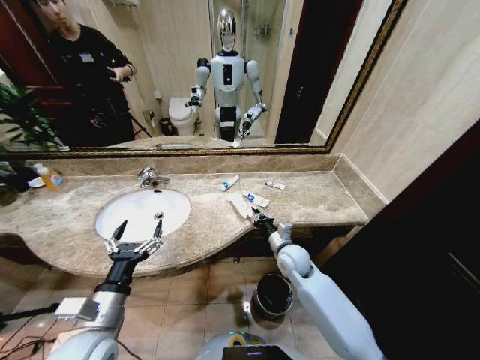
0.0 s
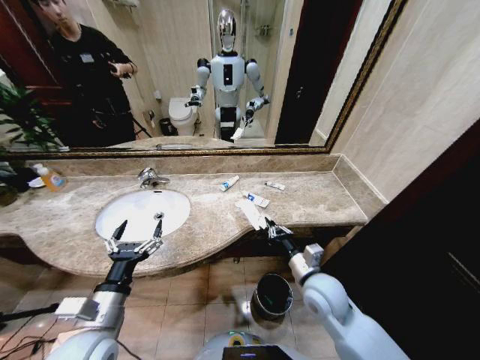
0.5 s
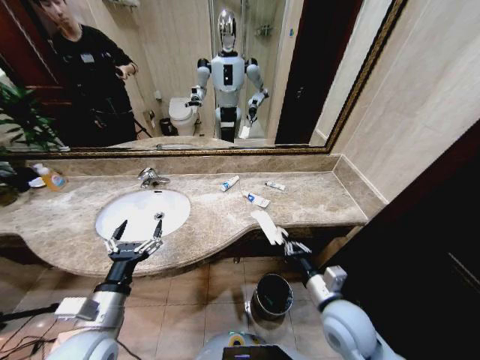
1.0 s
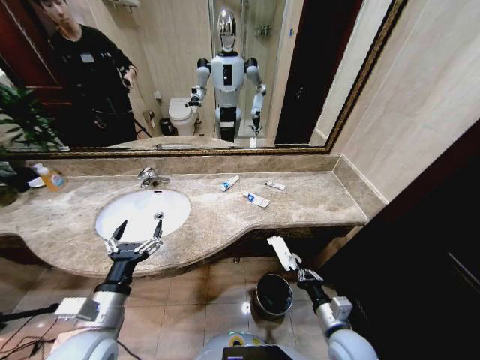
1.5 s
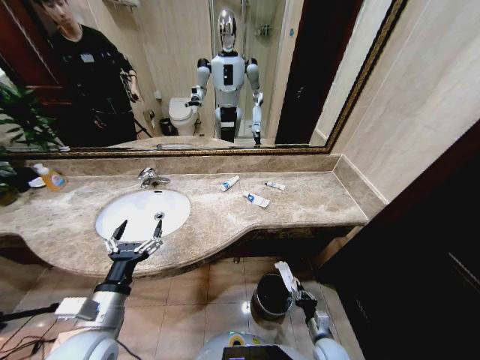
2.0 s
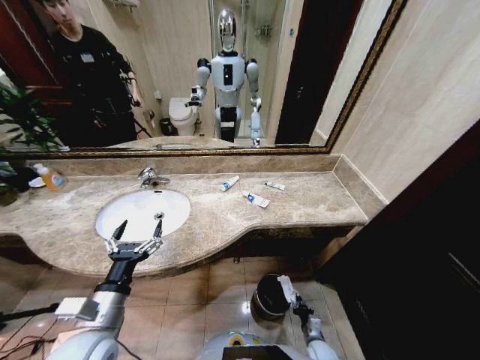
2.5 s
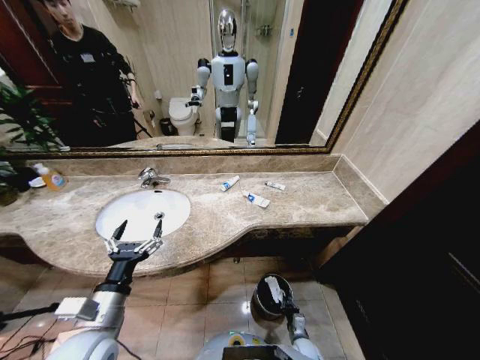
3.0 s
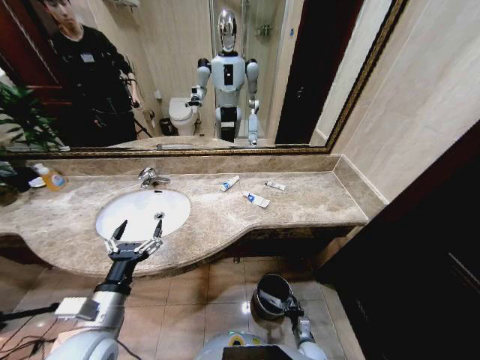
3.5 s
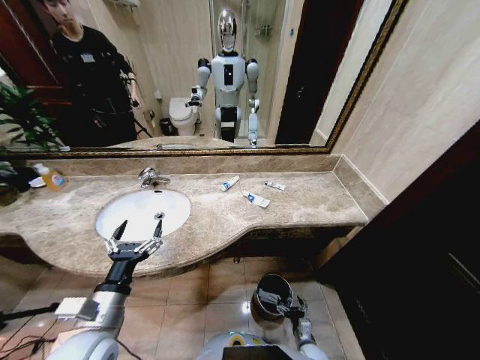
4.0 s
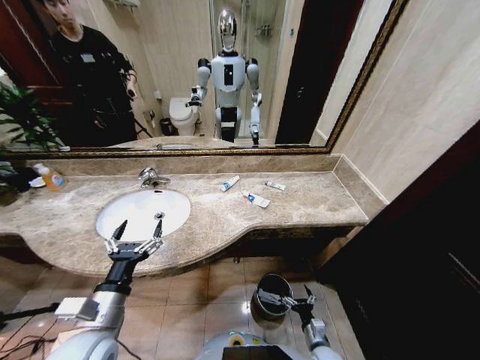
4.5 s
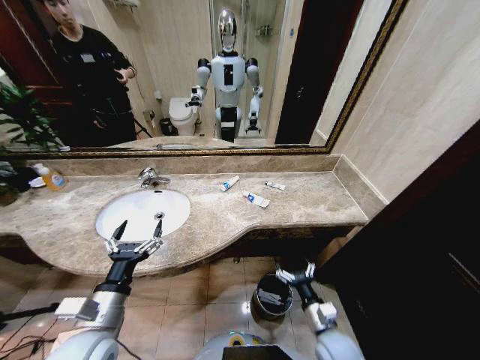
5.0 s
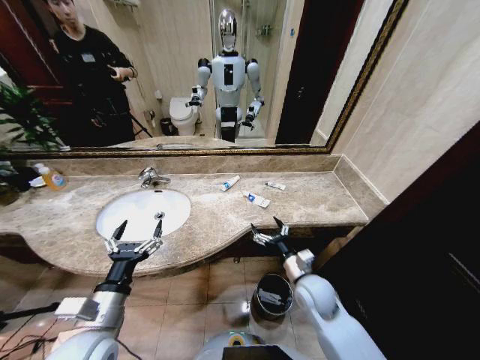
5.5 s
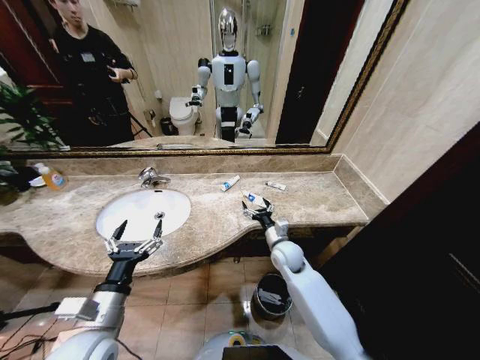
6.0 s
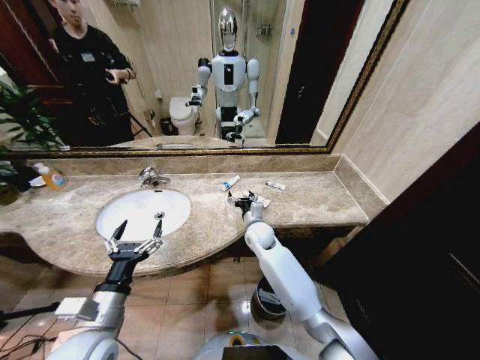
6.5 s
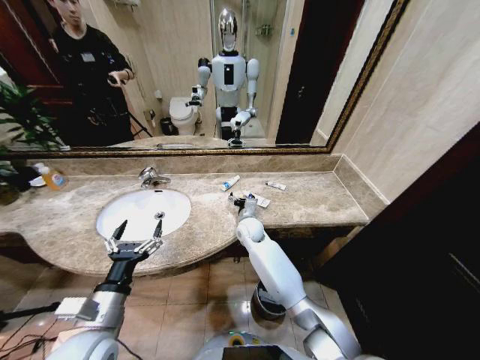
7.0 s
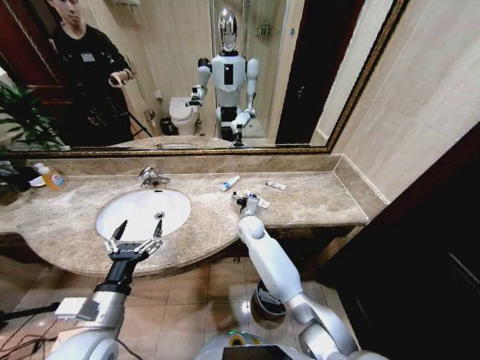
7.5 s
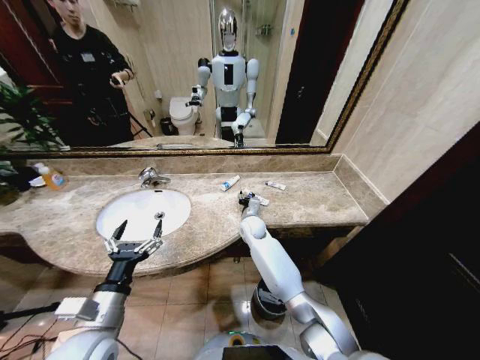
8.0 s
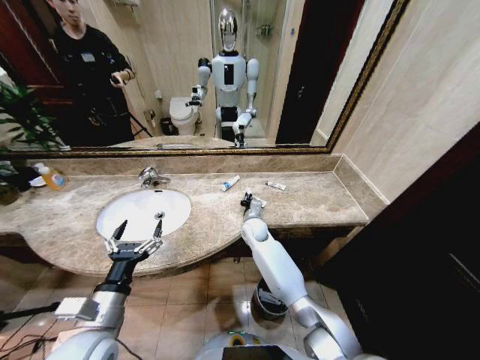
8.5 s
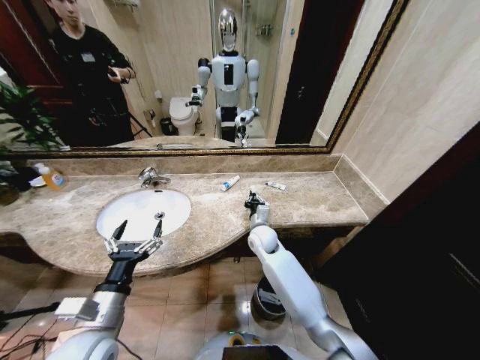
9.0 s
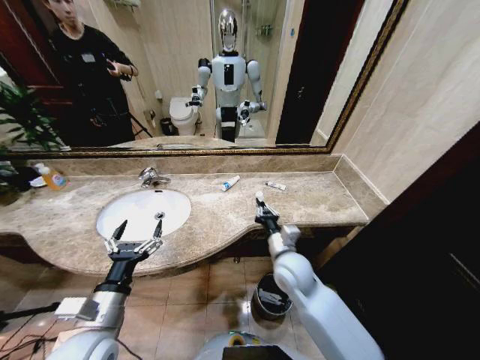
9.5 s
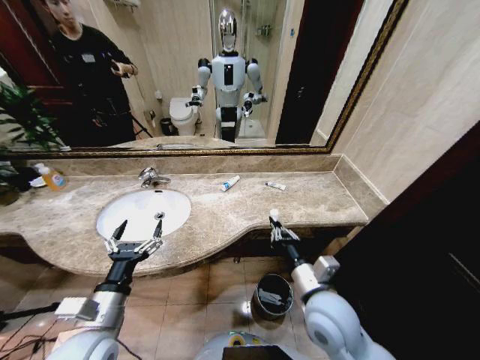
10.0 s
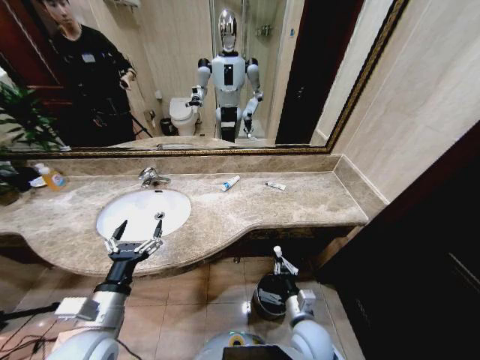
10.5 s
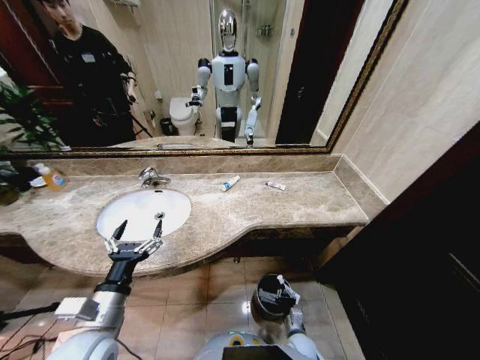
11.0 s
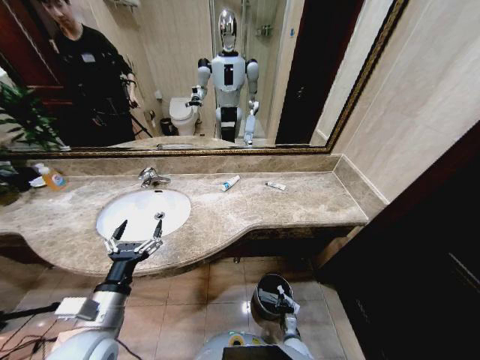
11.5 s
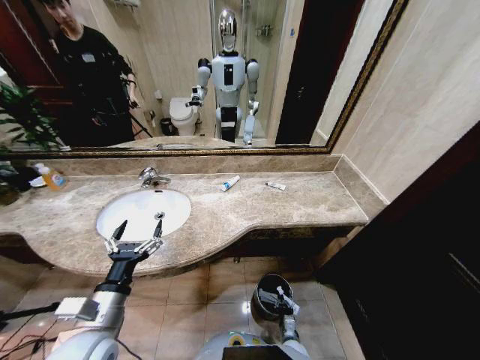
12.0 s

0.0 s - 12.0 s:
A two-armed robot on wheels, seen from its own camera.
Task of the whole recording: Pick up the trash from the sink and place it in the trash bin.
0.0 s - 2.0 s: The right gripper heads downward, backward and to the right, covering roughly 35 cm.
2.0 s - 4.0 s: The right gripper moves downward, roughly 10 cm, and opens its fingers.
4.0 s - 6.0 s: The right gripper shifts some 40 cm upward and forward.
6.0 s - 8.0 s: The right gripper goes roughly 15 cm forward and to the left, and closes.
8.0 s - 10.0 s: The right gripper shifts roughly 30 cm backward, and closes its fingers.
10.0 s - 12.0 s: The right gripper shifts roughly 40 cm downward.

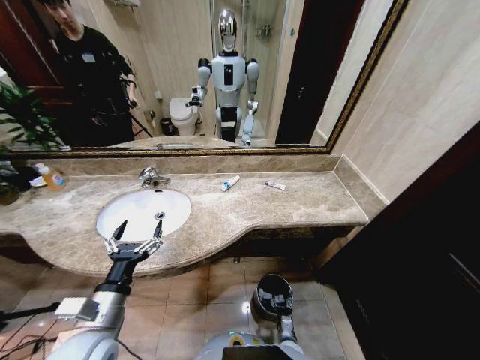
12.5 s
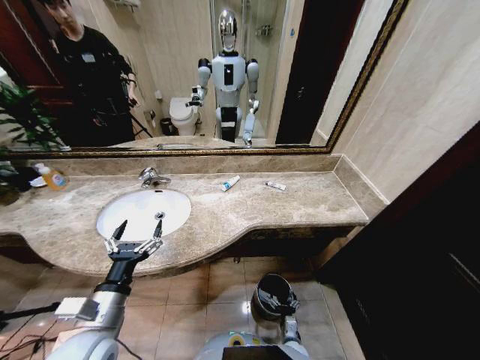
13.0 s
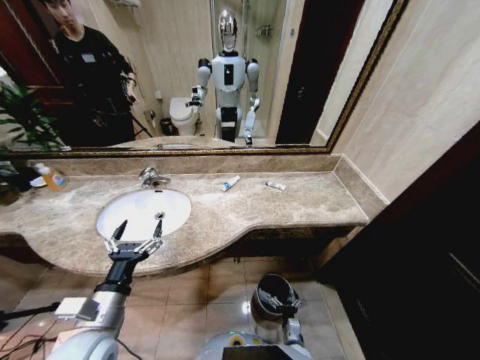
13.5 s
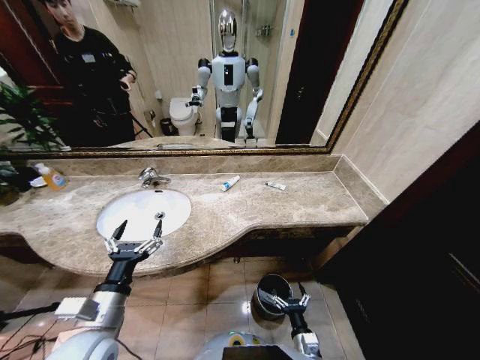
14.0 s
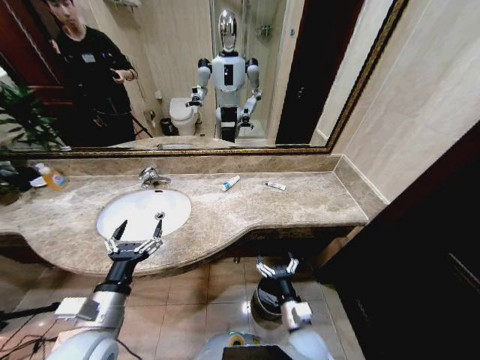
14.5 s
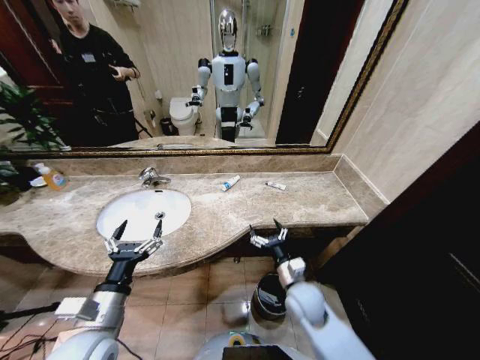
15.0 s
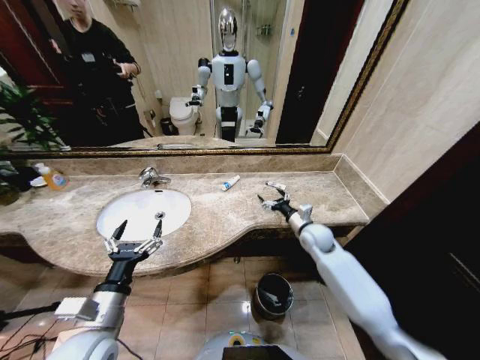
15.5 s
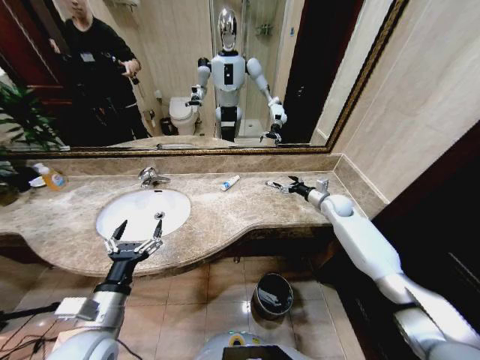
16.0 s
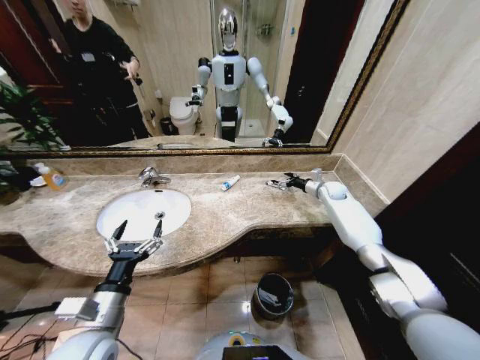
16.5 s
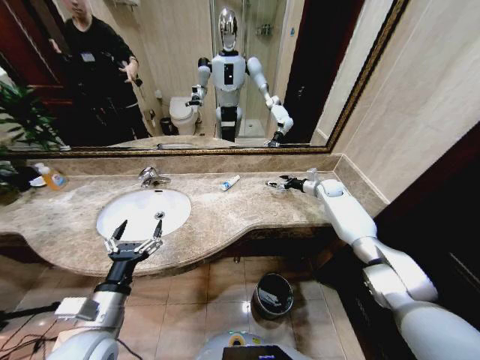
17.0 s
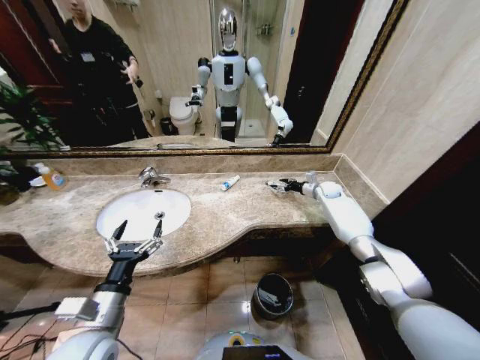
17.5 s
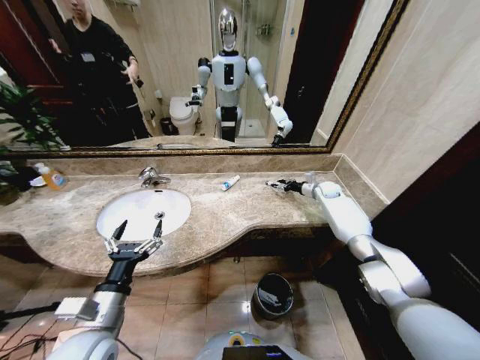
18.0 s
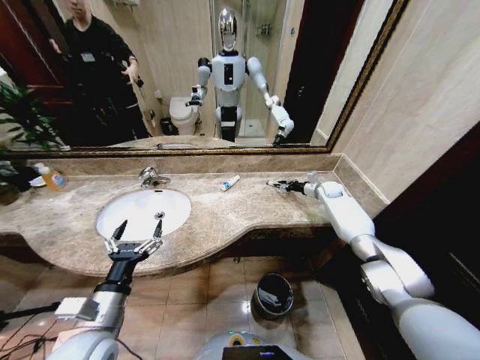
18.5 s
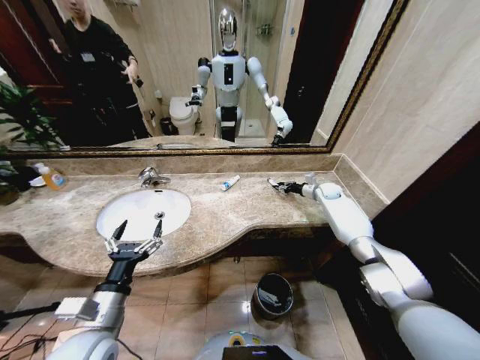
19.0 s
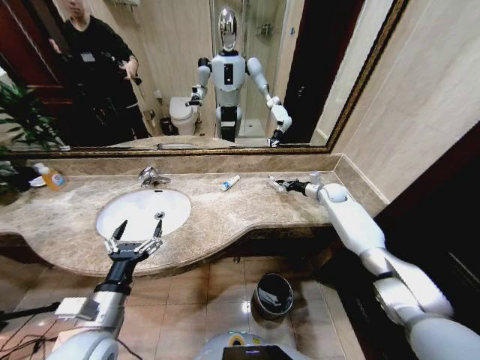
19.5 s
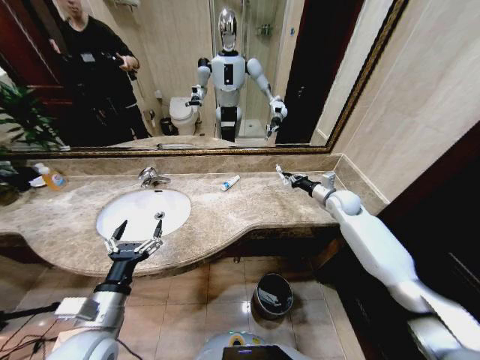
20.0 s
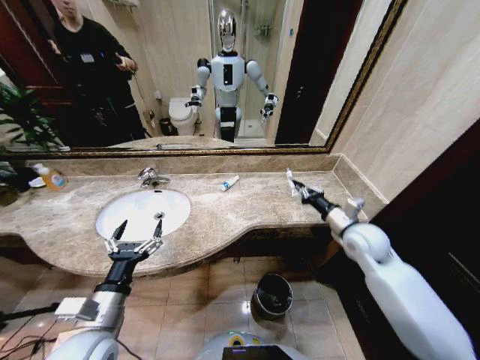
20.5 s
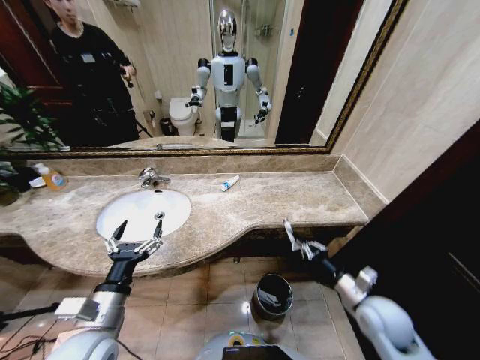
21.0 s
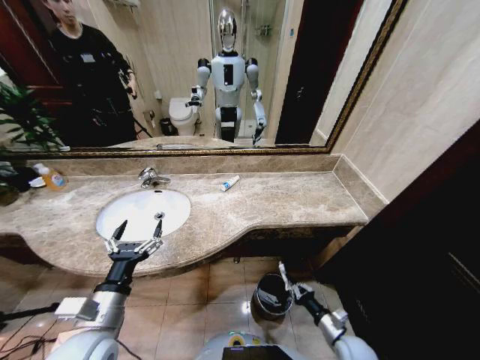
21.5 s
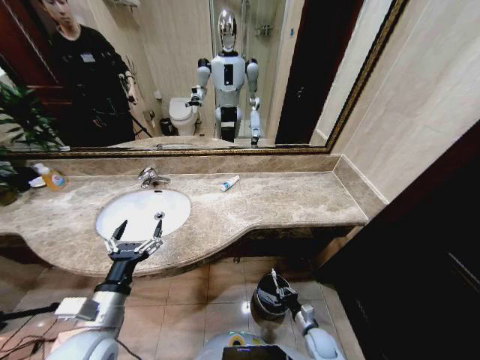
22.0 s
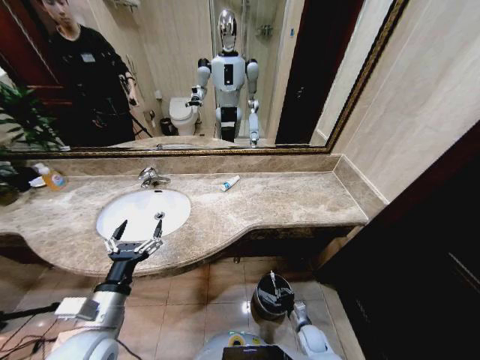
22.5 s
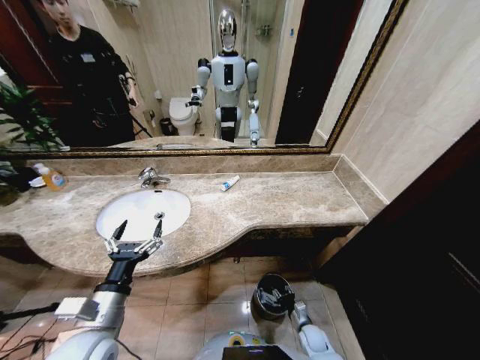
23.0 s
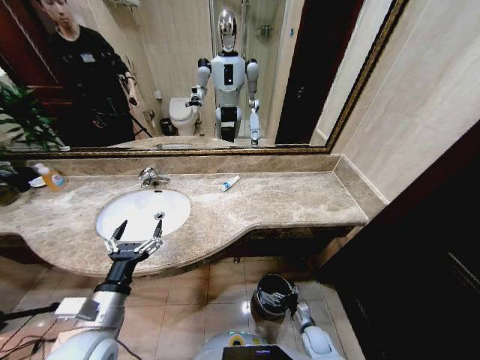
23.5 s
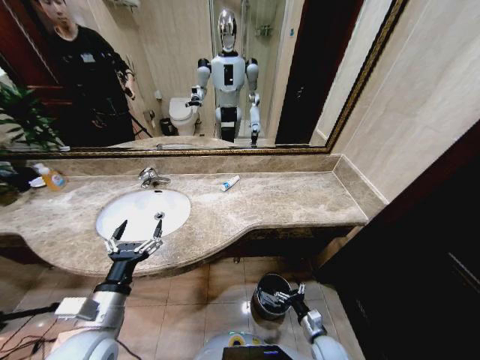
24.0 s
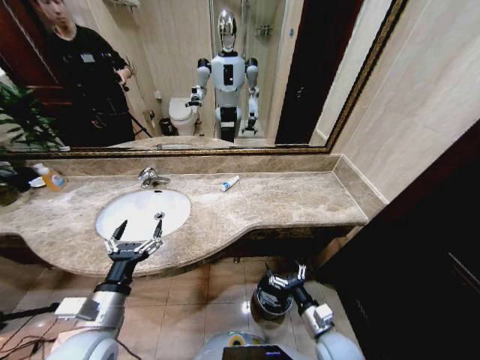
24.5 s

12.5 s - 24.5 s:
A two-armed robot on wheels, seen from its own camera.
Task of the whole recording: Pick up the trash from the sink and place it in the trash bin.
12.5 s - 14.5 s: The right gripper travels upward by approximately 25 cm, and opens.
14.5 s - 16.5 s: The right gripper heads forward and to the right, covering some 50 cm.
16.5 s - 18.5 s: The right gripper closes up.
18.5 s - 20.5 s: The right gripper is displaced backward by approximately 25 cm, and closes up.
20.5 s - 22.5 s: The right gripper goes some 40 cm downward.
22.5 s - 24.5 s: The right gripper travels upward by about 20 cm, and opens up.

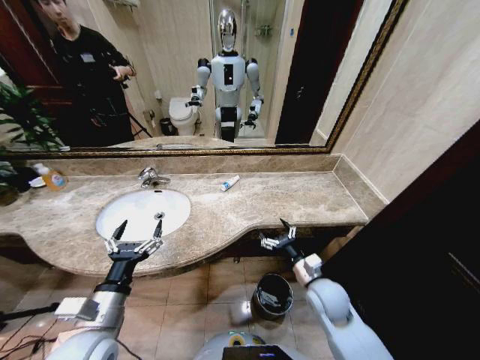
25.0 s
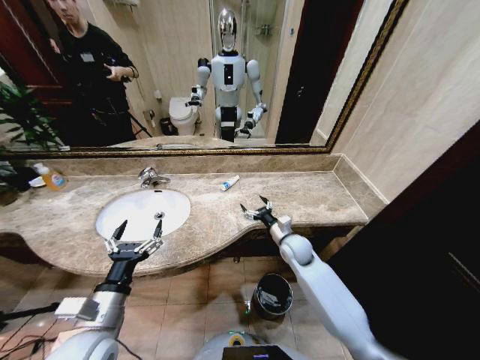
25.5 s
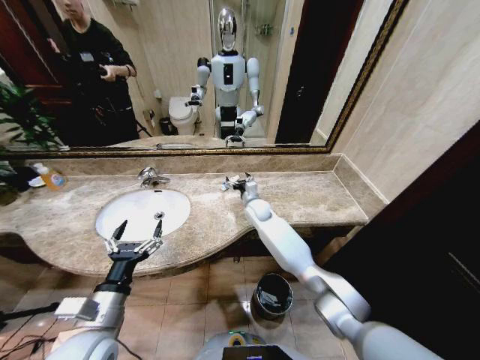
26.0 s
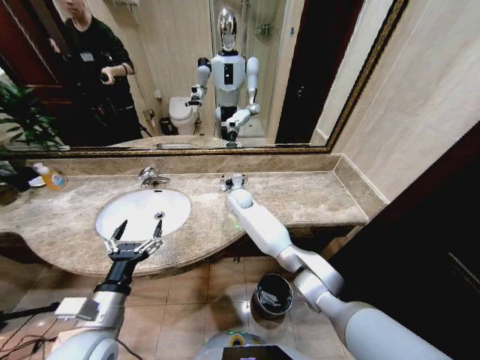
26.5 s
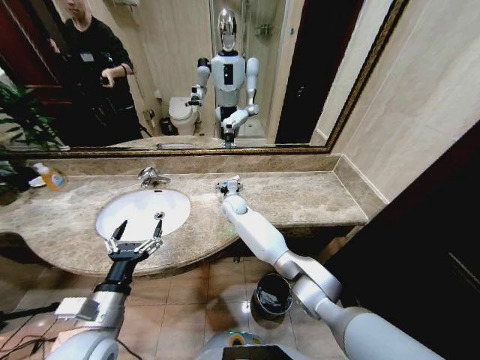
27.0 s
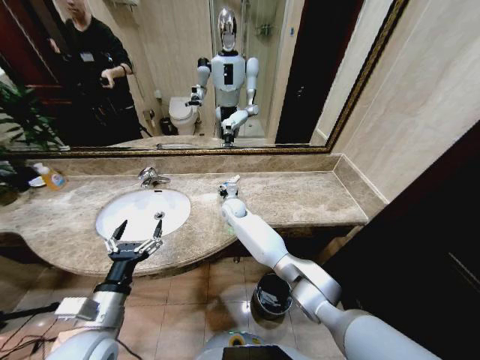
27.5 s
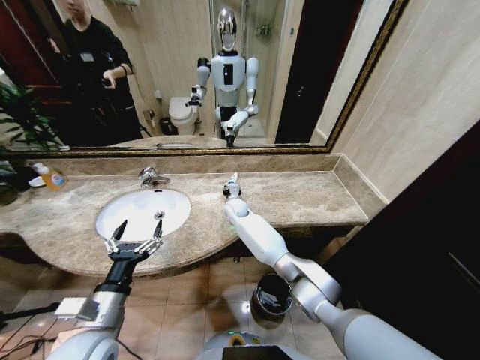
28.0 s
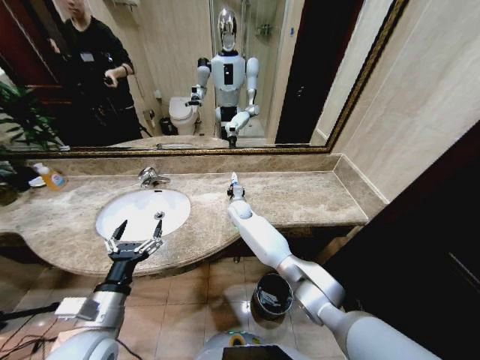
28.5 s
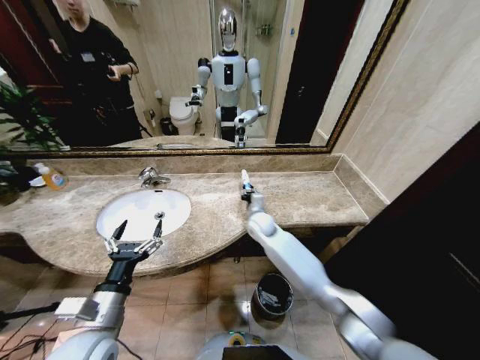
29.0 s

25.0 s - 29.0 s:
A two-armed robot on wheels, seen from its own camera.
Task of the whole recording: Pick up the trash from the sink and place it in the trash bin.
25.0 s - 27.0 s: The right gripper goes approximately 40 cm forward and to the left.
27.0 s - 29.0 s: The right gripper heads to the right and backward, covering about 15 cm, and closes up.
